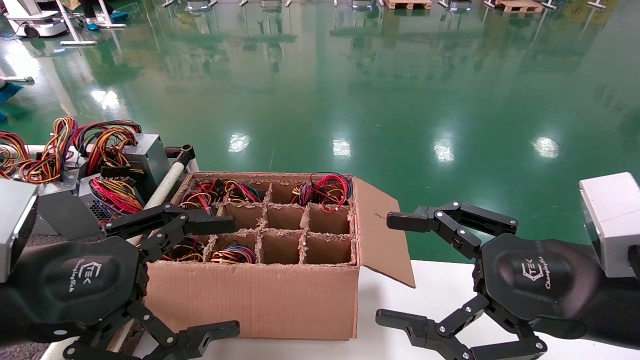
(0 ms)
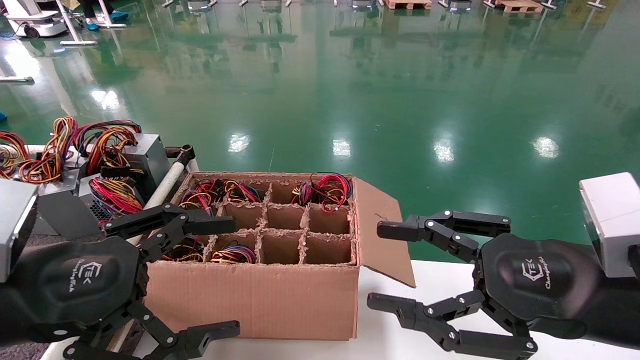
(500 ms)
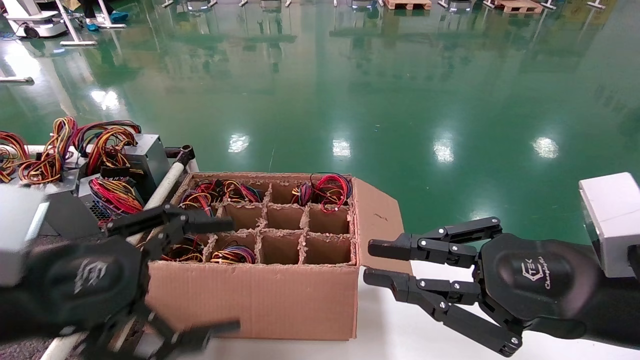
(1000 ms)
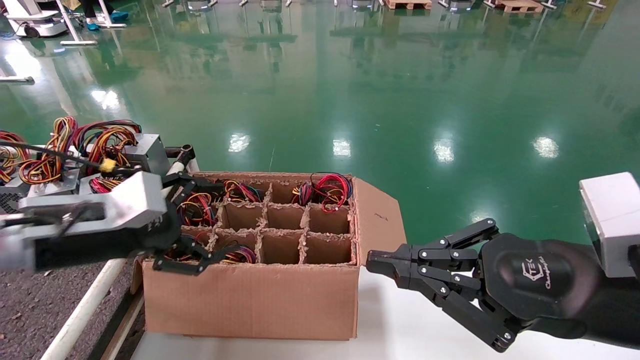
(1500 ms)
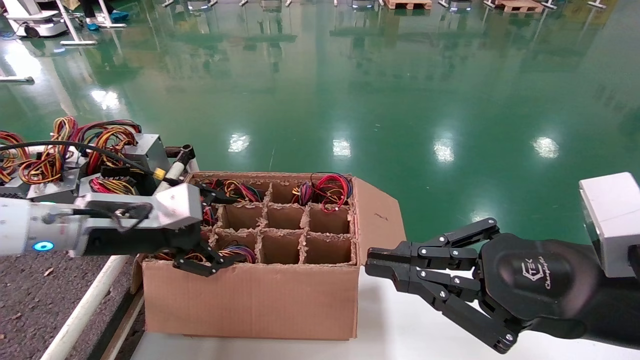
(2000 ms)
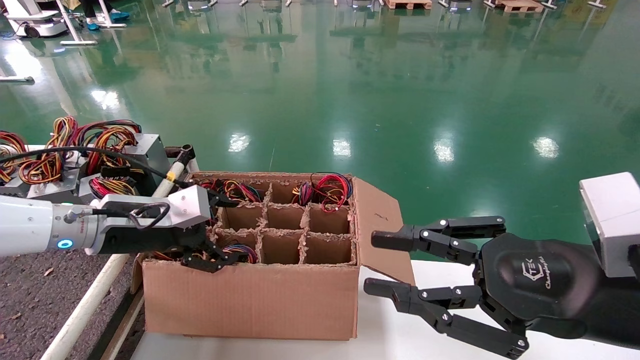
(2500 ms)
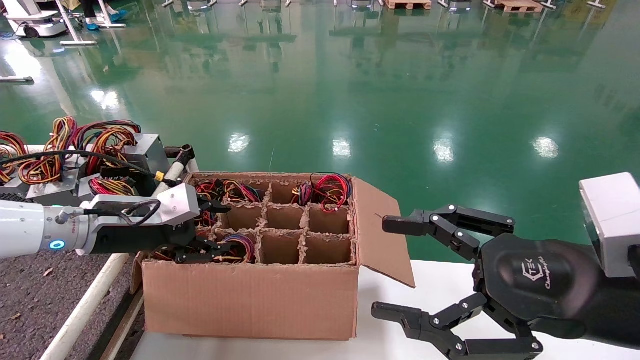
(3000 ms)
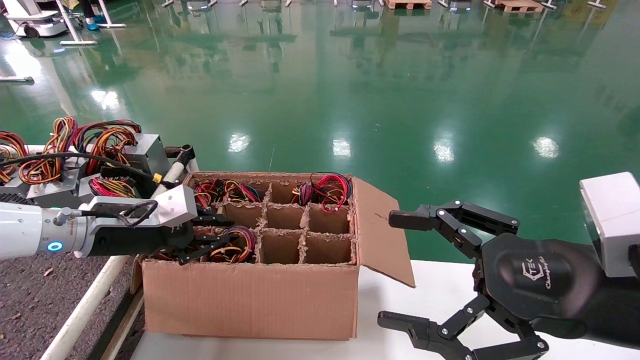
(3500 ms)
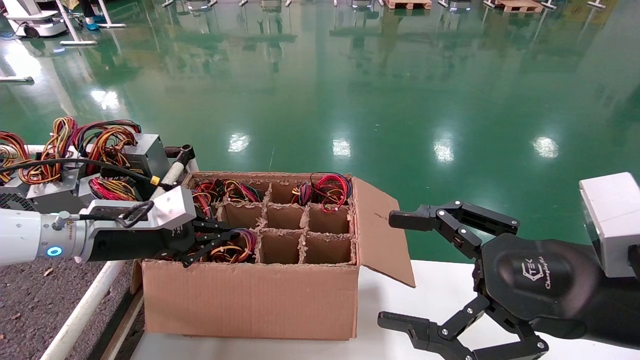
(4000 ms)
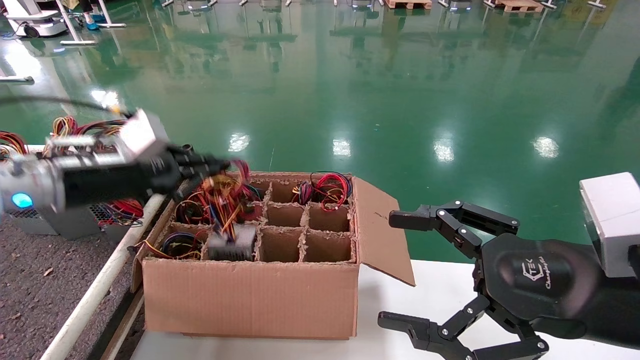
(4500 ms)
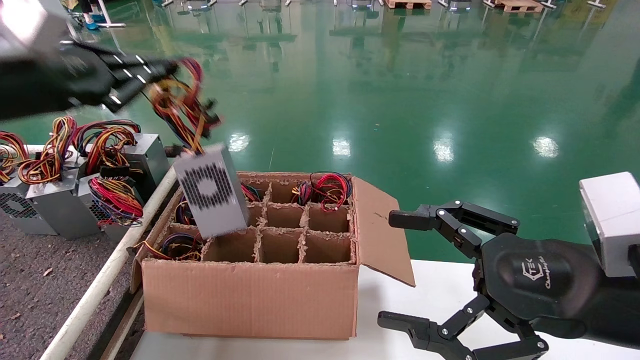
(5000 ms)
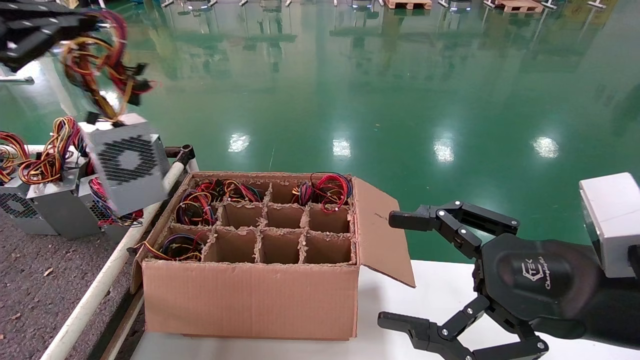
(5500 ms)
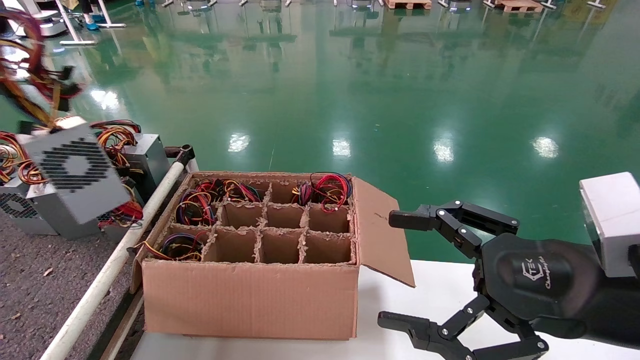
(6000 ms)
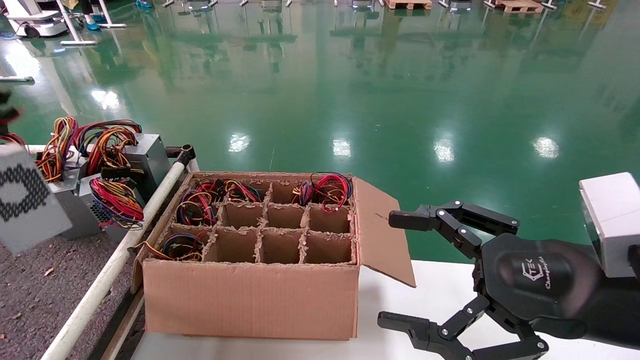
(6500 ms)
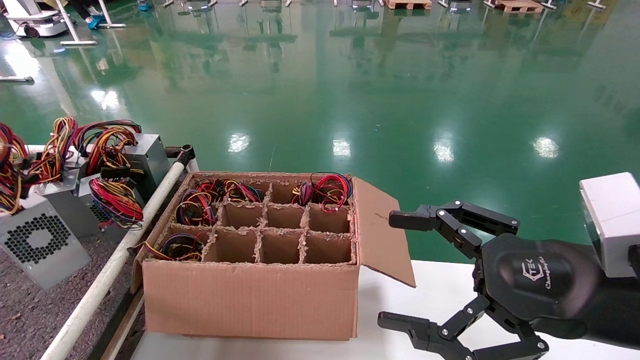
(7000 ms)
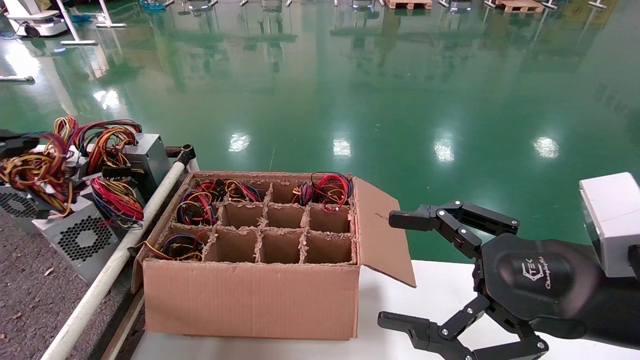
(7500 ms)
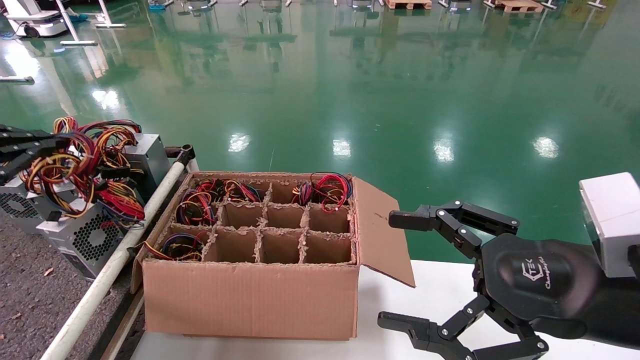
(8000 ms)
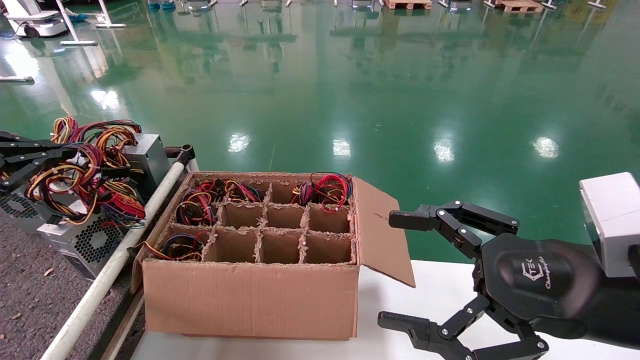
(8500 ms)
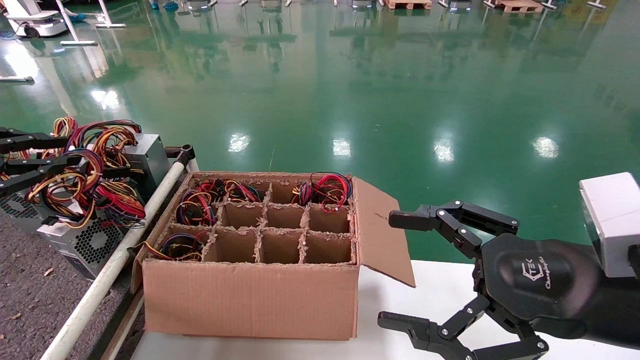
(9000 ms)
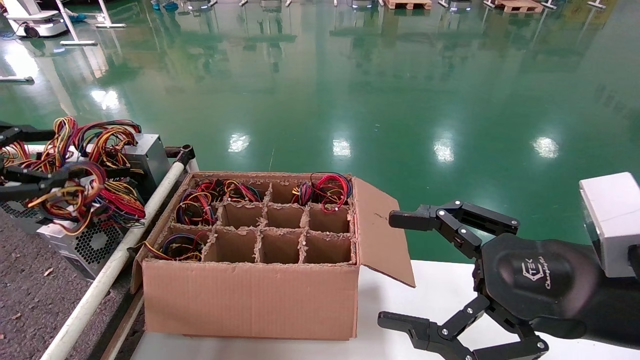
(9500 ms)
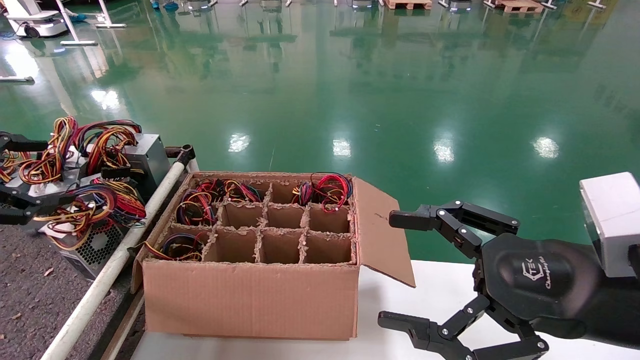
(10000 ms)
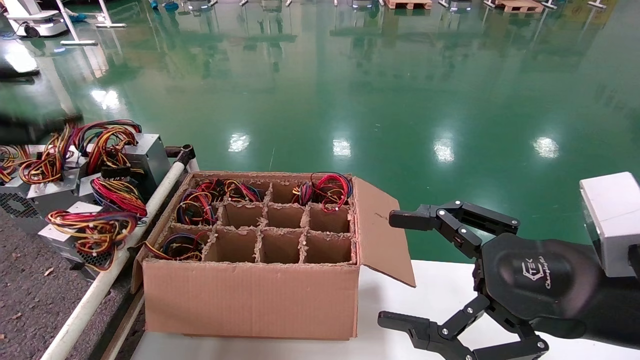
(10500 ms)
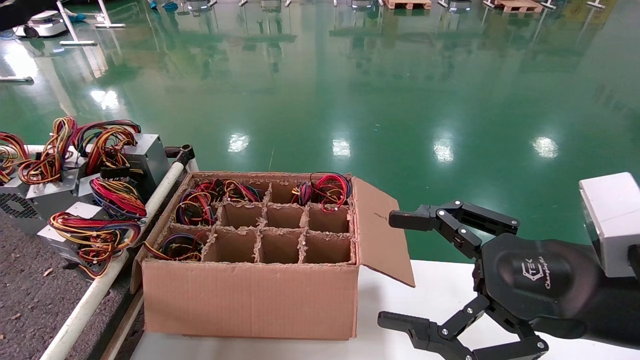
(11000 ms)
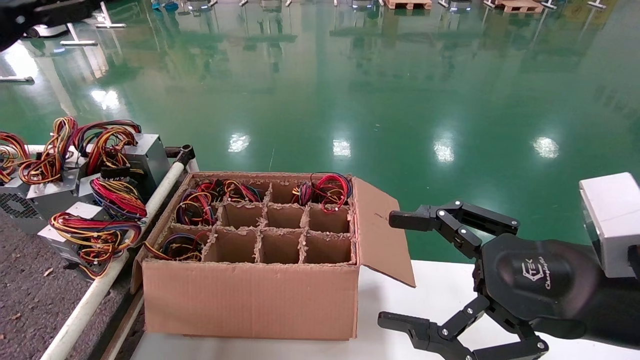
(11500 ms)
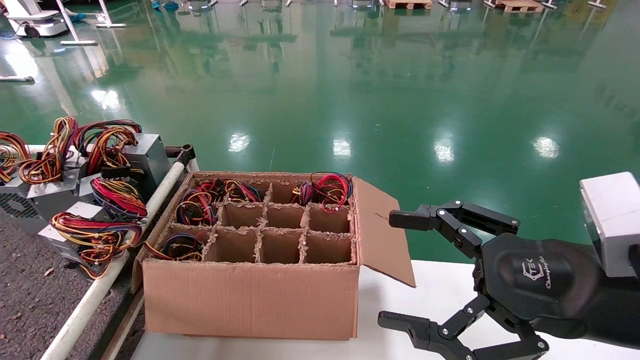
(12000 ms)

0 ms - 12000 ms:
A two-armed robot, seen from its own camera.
Step, 1500 ms - 4000 ms: Grab and lift the power supply from the large box.
Step, 4500 ms - 9500 ms: Place the power supply on the operating table.
0 ms - 2000 ms: The left gripper moves forward, approximately 15 cm. Meanwhile the right gripper closes up.
2000 ms - 4000 ms: The right gripper opens; the left gripper closes its fingers.
4000 ms - 6000 ms: The left gripper moves upward, backward and to the left, some 35 cm.
6000 ms - 8000 ms: The left gripper is displaced downward and forward by roughly 15 cm.
8000 ms - 10000 ms: The left gripper opens its fingers.
10000 ms - 12000 ms: The left gripper travels upward, forward and to the right by roughly 25 cm.

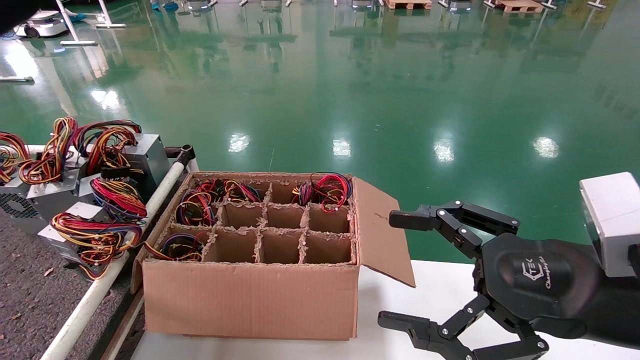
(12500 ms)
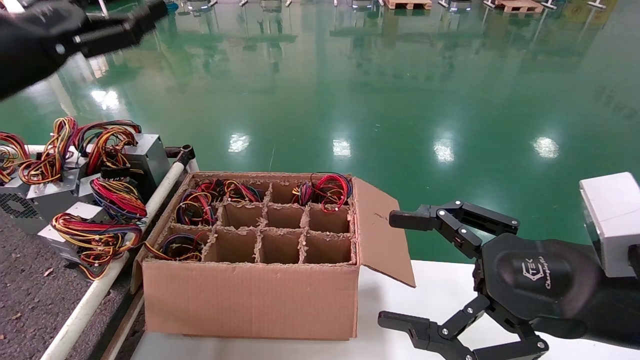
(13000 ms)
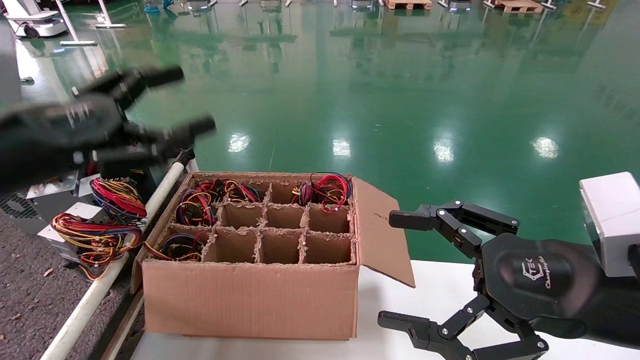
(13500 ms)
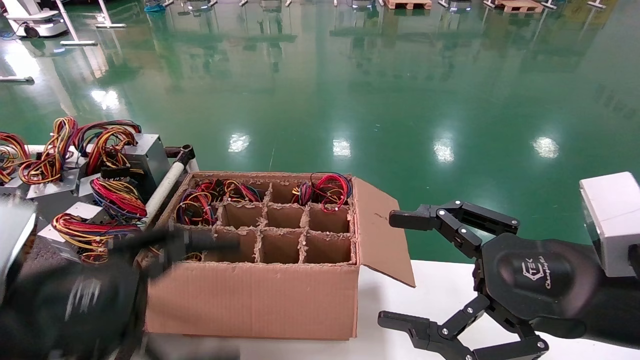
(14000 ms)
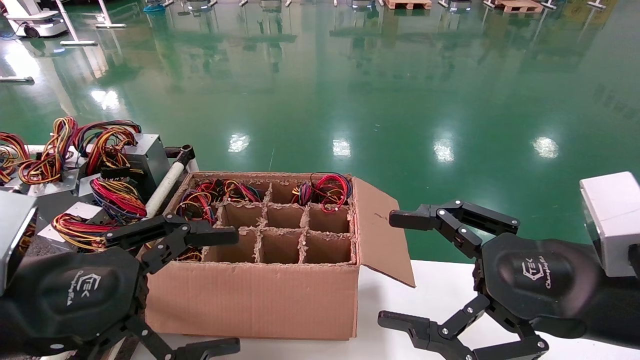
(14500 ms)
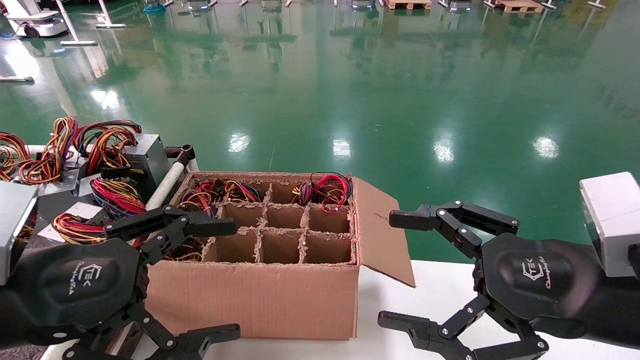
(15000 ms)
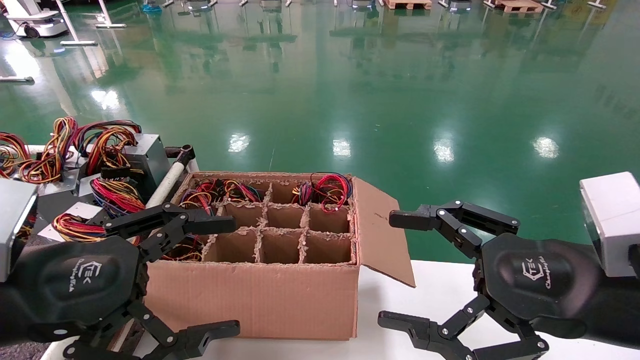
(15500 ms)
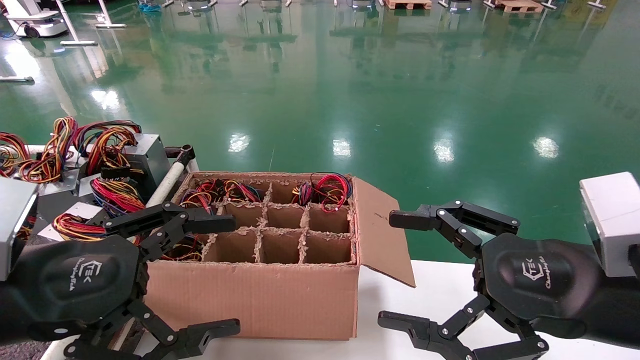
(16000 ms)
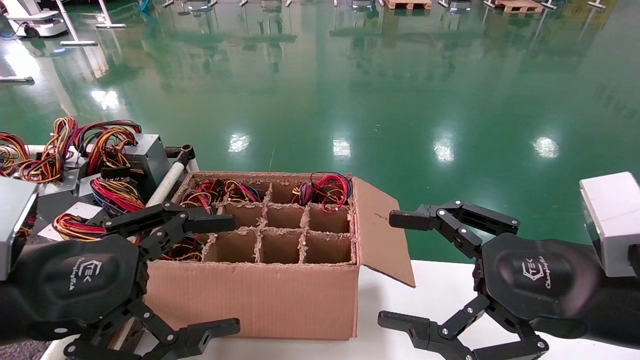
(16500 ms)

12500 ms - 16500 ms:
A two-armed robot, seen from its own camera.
12500 ms - 14500 ms: The left gripper moves downward, backward and to the right, roughly 30 cm.
14500 ms - 16500 ms: Both grippers stay put.
